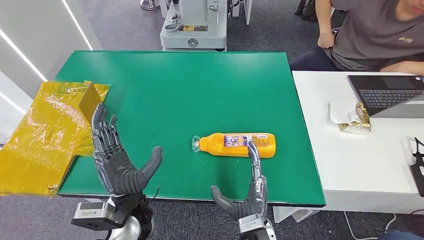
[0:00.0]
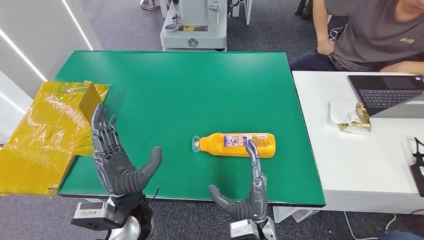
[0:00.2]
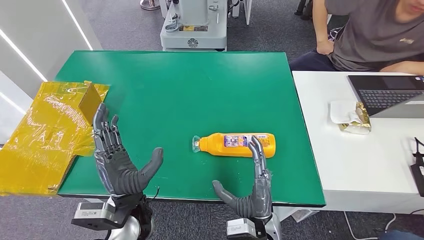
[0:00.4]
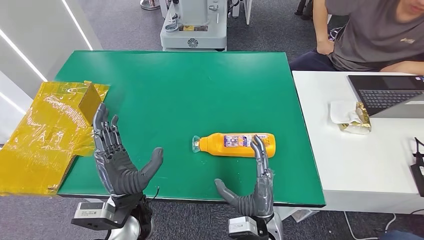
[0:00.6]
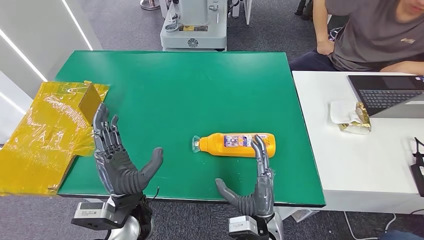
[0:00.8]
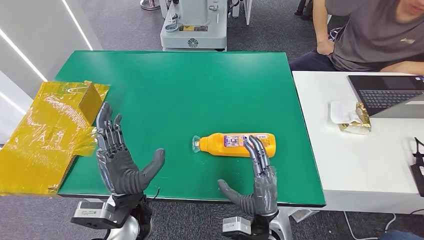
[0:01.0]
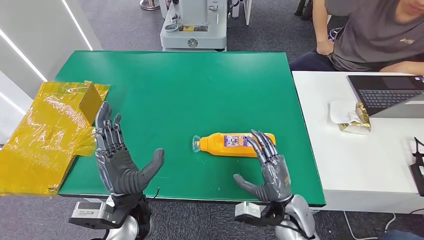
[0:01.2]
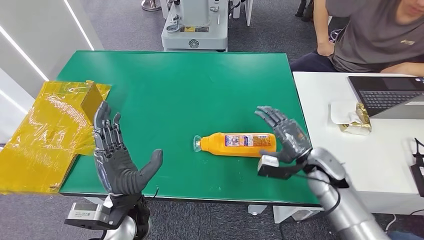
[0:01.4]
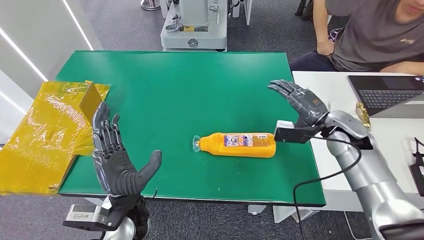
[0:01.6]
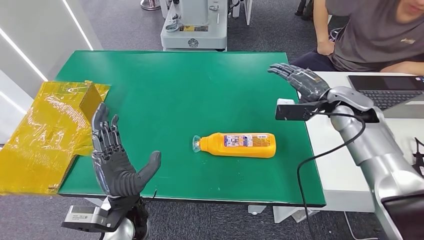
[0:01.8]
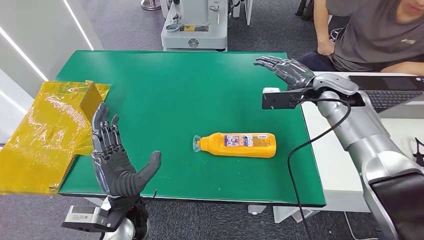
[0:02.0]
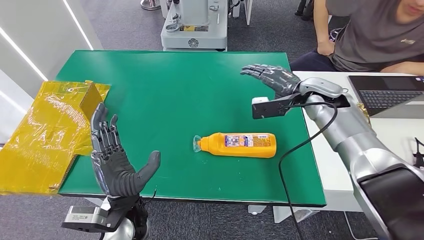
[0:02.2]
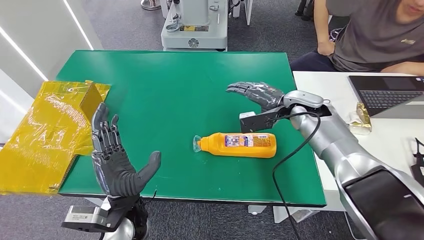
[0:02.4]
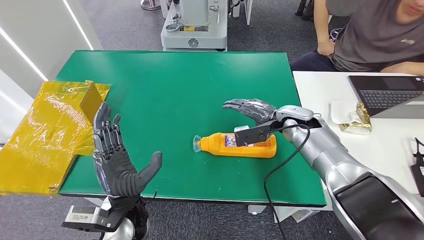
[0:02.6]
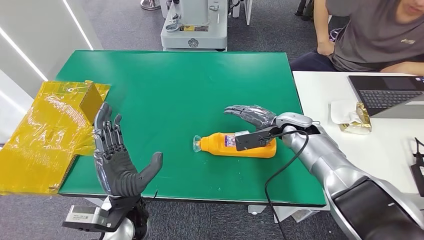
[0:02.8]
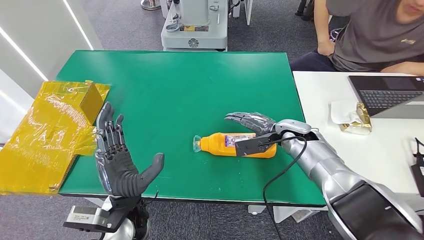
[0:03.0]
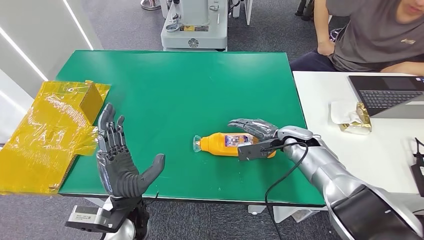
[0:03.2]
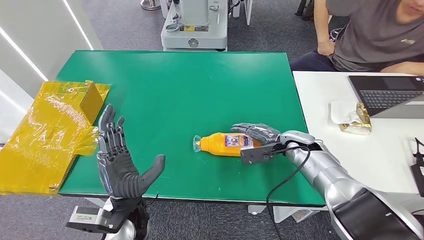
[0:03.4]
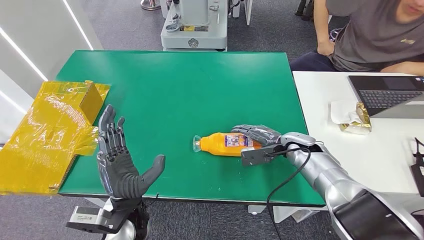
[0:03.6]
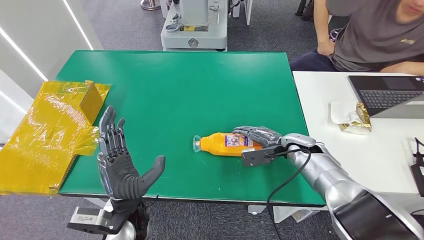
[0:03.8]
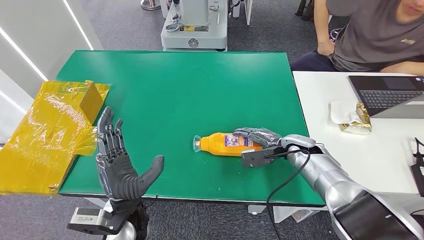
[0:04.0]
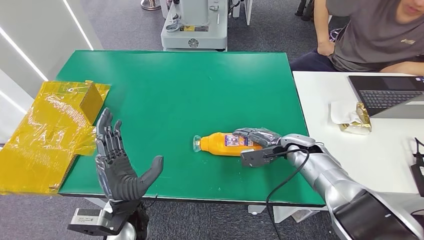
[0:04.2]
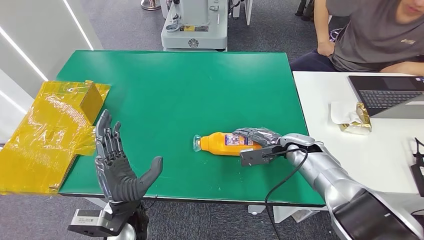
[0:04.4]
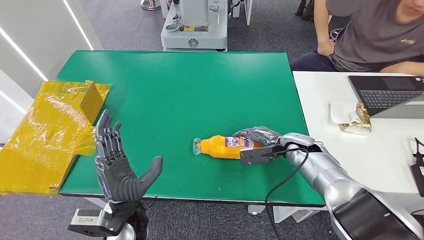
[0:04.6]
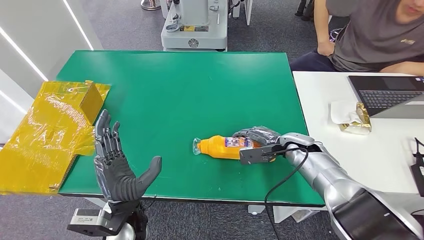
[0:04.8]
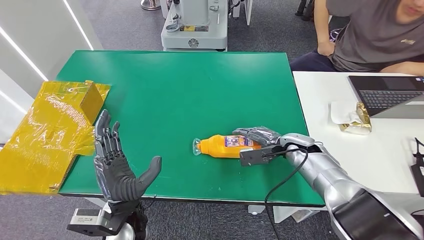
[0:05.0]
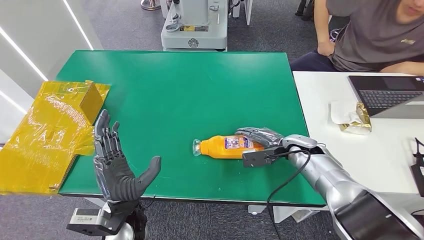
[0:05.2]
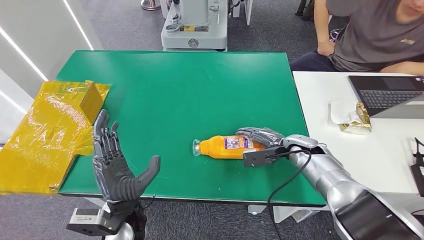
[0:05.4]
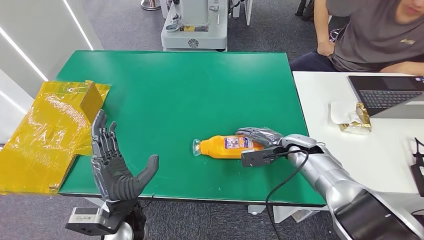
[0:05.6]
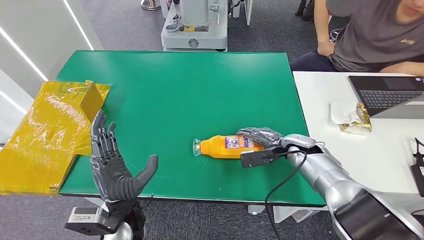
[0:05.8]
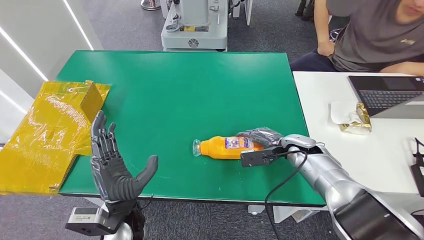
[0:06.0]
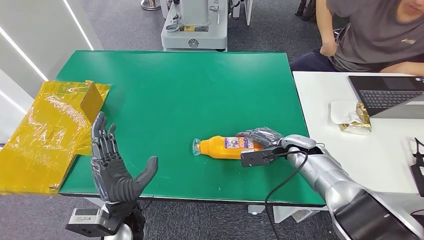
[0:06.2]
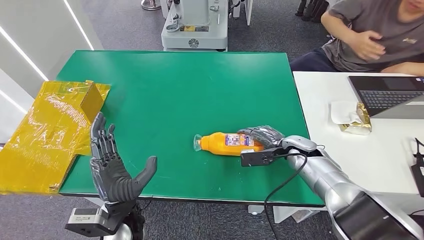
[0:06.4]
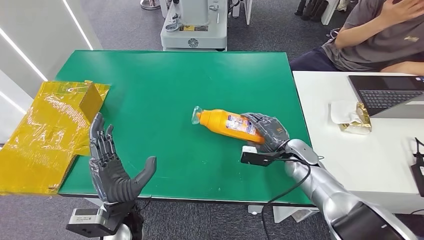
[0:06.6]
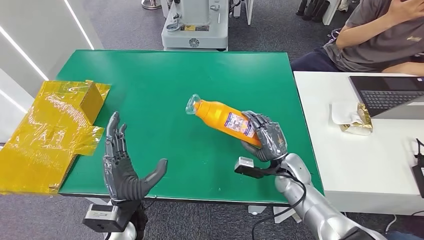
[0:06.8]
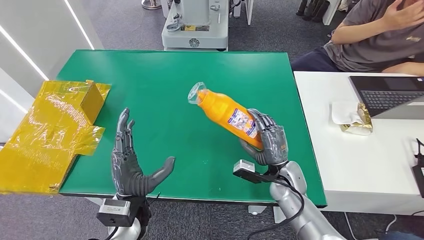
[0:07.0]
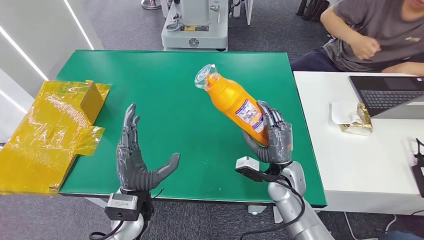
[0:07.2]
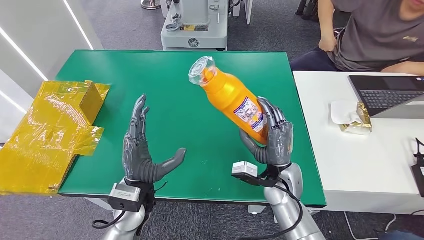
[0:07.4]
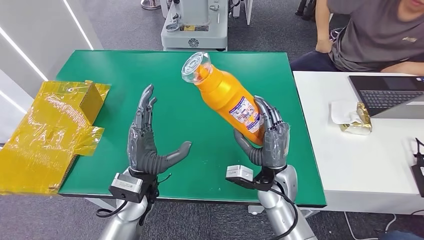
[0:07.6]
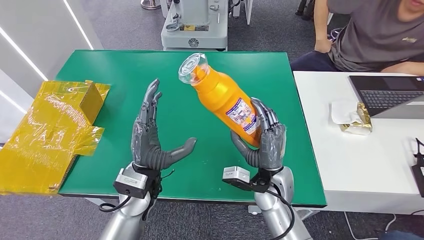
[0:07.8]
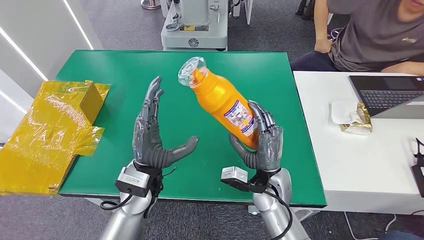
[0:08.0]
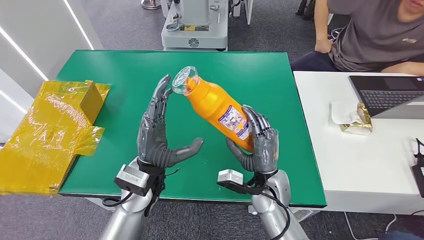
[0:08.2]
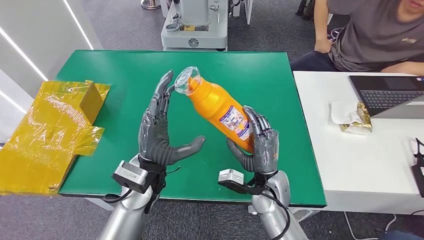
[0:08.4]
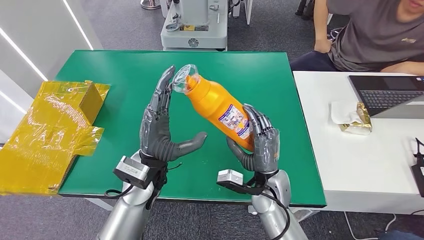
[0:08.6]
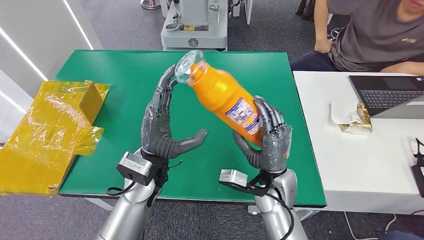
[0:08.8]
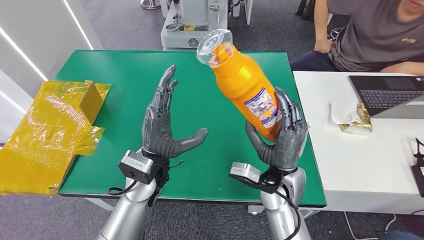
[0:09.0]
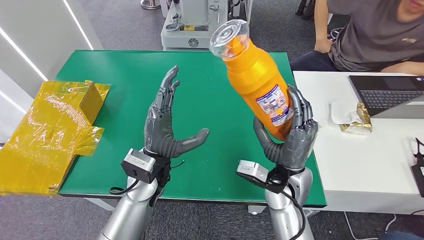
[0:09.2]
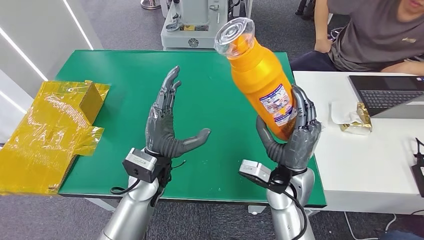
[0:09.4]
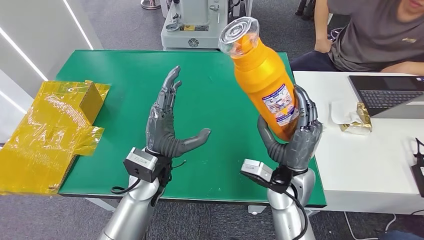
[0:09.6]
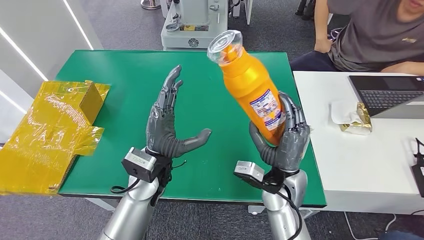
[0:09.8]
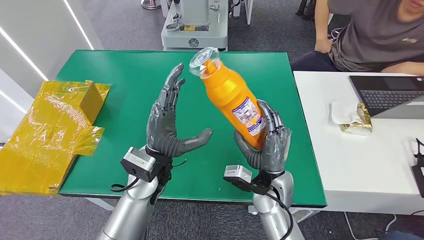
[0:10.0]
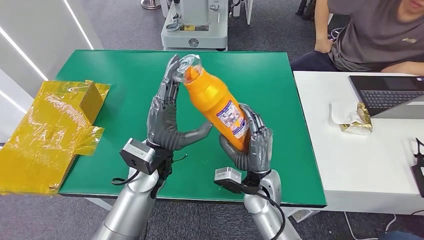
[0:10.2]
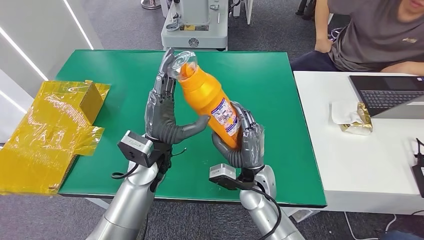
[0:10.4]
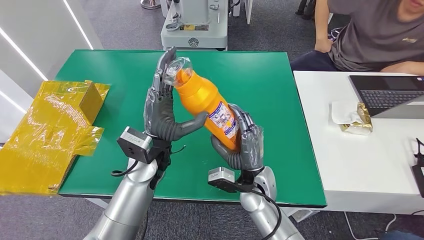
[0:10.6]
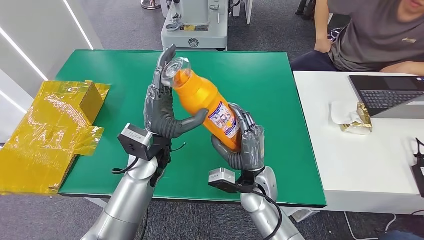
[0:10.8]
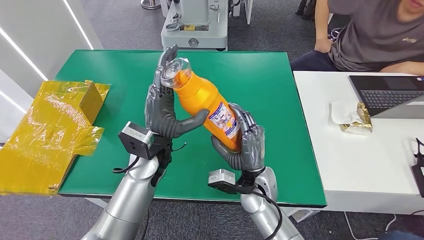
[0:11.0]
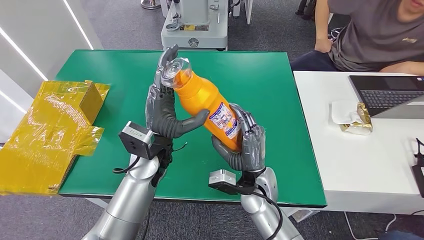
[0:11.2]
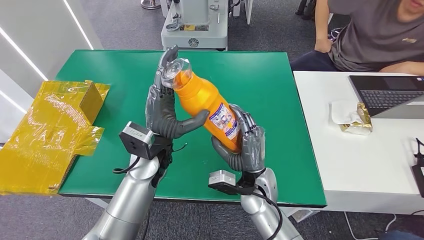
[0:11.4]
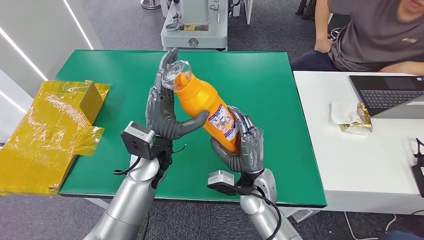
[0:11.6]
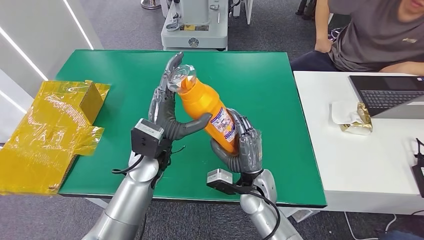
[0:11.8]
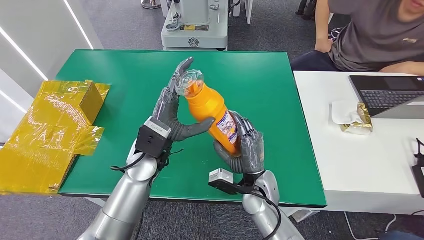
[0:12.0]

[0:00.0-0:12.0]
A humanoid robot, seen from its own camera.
Step, 0:00.0 to 0:07.8: Pick up the bottle from the table.
0:01.6 to 0:03.0: The right hand goes roughly 10 cm to the left and downward.
0:03.0 to 0:04.4: There are only small adjustments of the hands.
0:04.4 to 0:06.0: Neither hand changes place.
0:06.0 to 0:07.6: The left hand travels forward by some 5 cm, while the right hand goes roughly 15 cm to the left and backward.
0:07.6 to 0:09.0: The left hand moves approximately 5 cm.
0:09.0 to 0:10.4: The right hand heads to the left, covering roughly 5 cm.
0:10.4 to 0:12.0: The hands stay close to where they were, moving slightly.

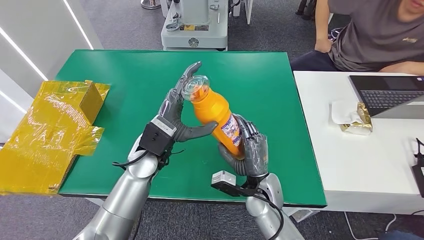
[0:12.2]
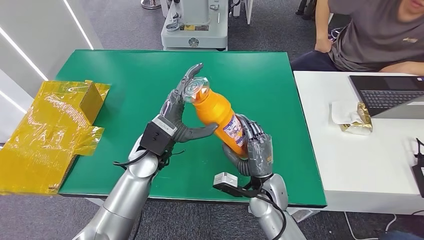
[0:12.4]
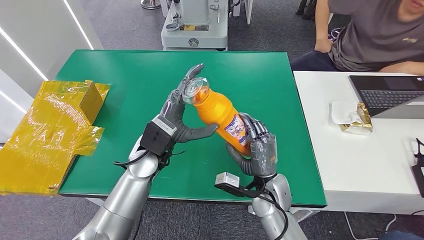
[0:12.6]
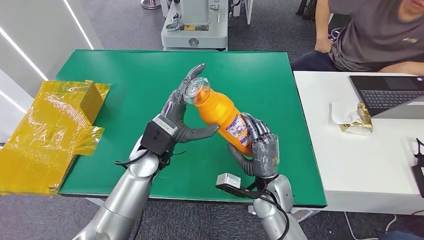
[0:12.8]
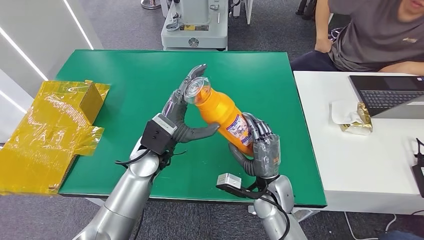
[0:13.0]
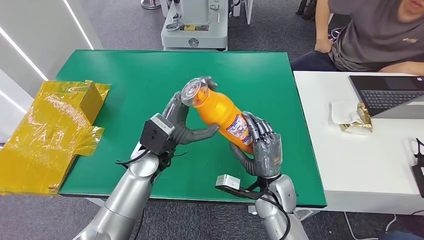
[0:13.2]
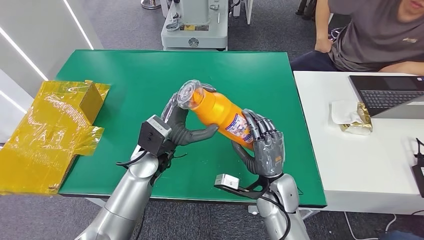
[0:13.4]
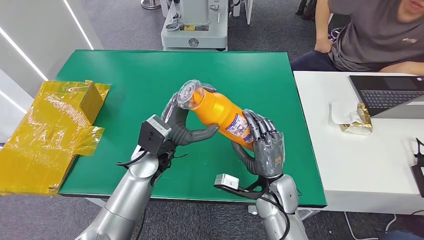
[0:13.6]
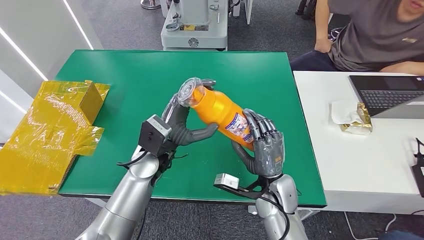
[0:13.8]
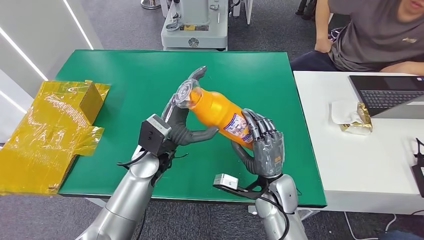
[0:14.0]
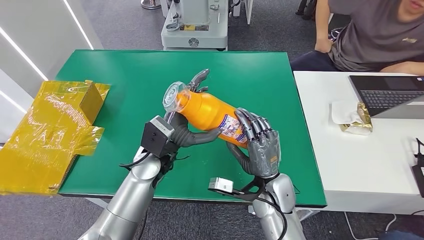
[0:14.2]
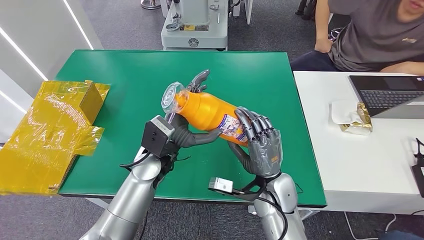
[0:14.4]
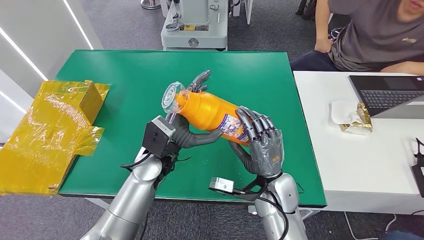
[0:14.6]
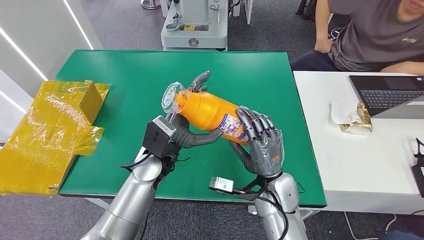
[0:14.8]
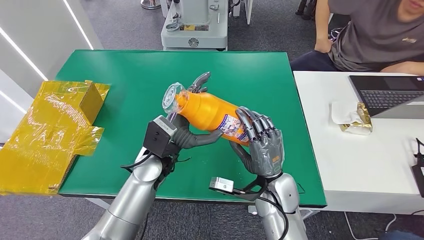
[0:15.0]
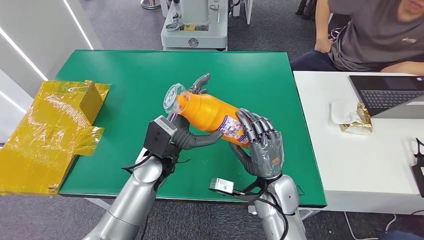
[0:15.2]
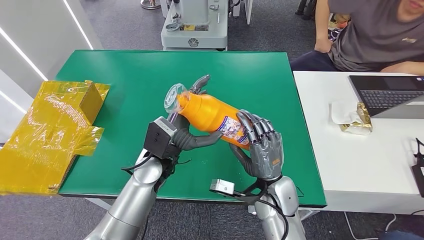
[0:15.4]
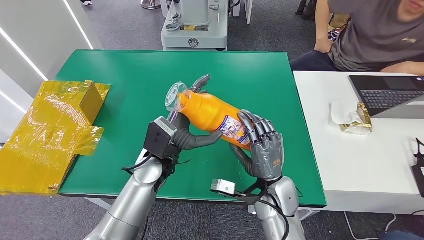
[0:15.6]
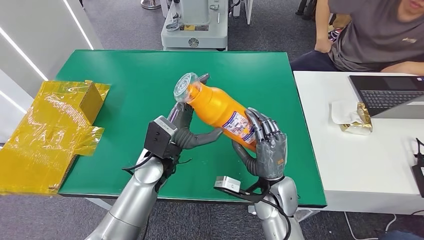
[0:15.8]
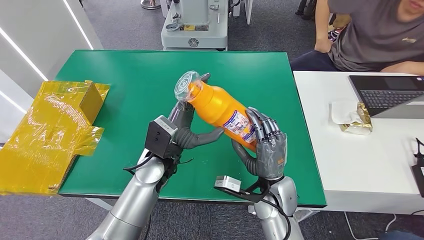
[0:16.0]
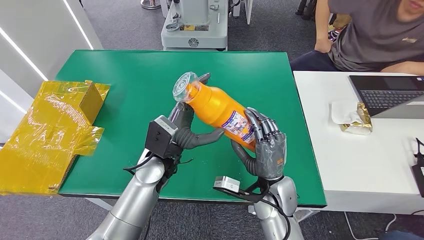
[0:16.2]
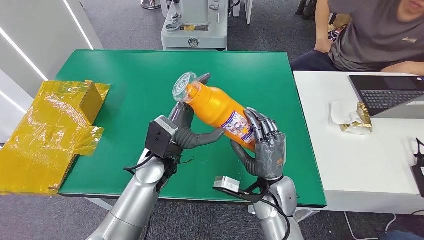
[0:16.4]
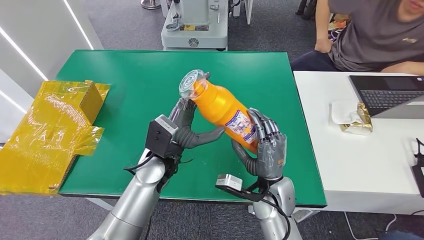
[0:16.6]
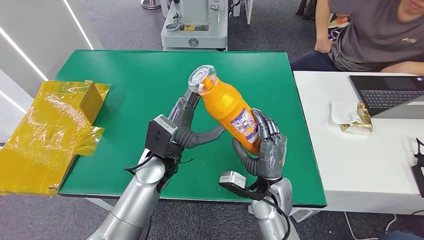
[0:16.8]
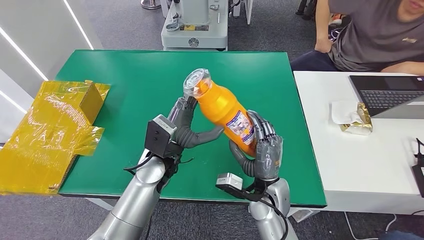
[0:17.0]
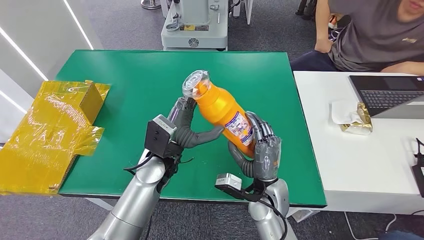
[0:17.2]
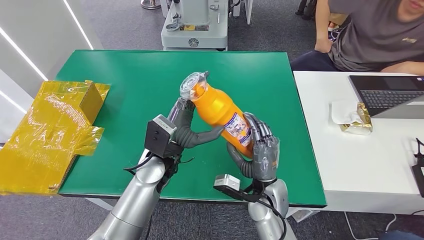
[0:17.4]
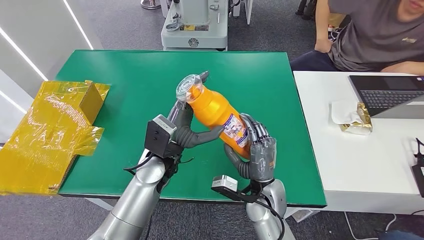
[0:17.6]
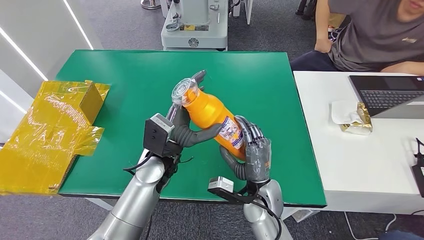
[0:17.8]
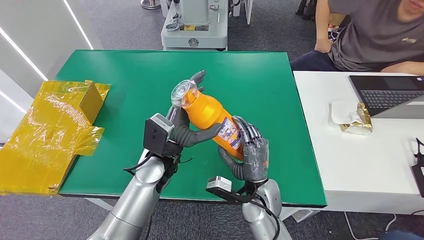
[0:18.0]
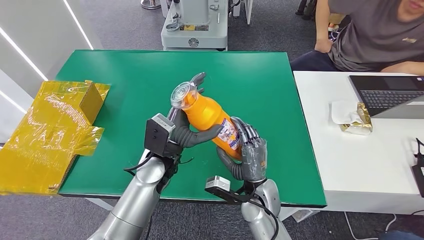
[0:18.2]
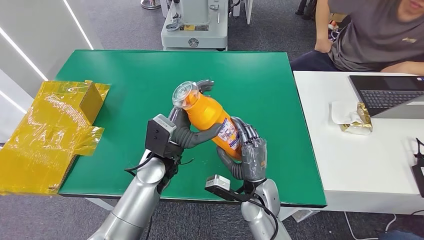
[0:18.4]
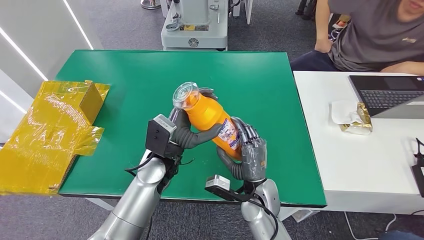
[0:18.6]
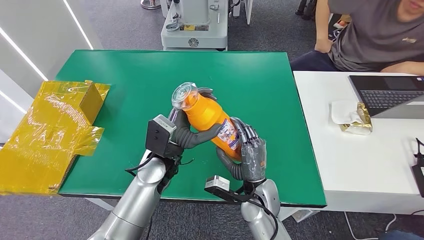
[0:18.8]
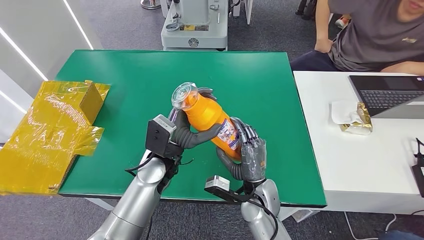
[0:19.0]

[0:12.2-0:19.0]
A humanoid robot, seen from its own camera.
0:12.2 to 0:13.6: The hands move only a little.
0:13.6 to 0:19.0: The hands make only small movements.
